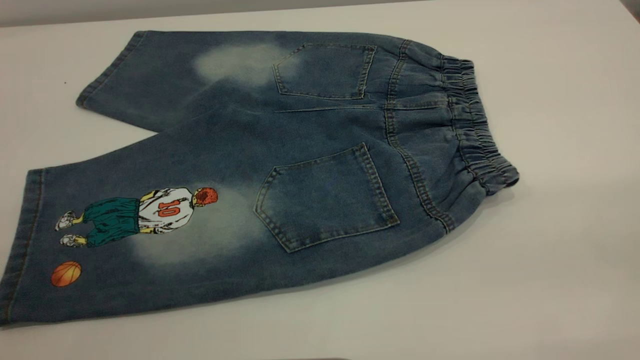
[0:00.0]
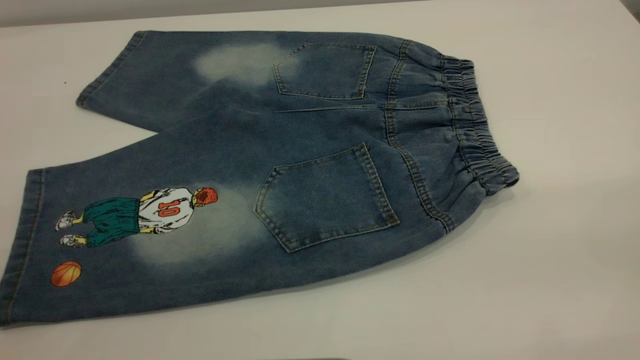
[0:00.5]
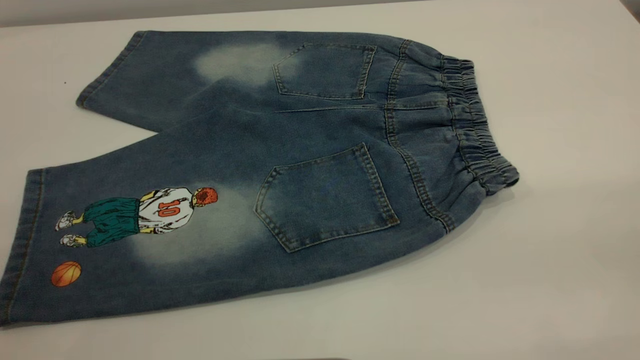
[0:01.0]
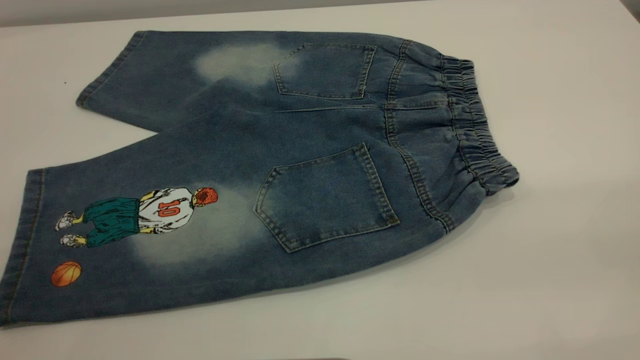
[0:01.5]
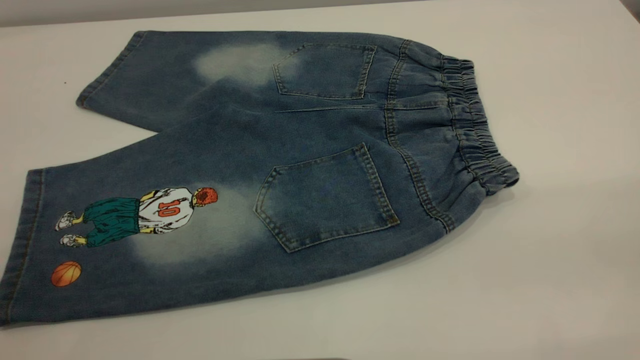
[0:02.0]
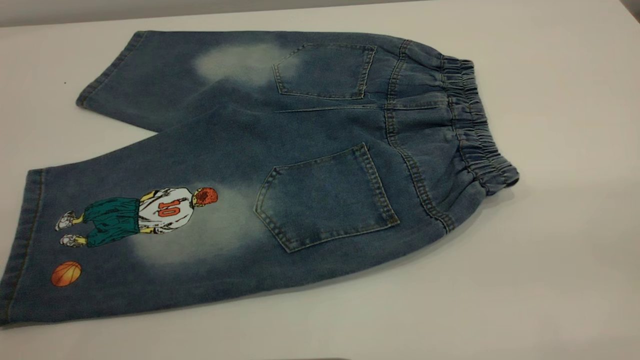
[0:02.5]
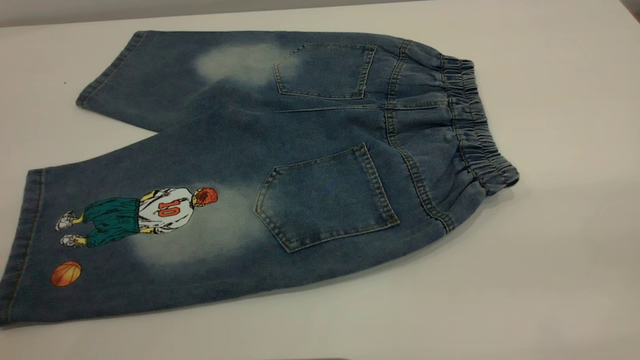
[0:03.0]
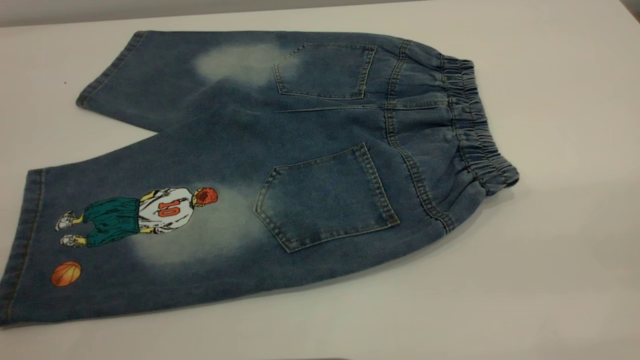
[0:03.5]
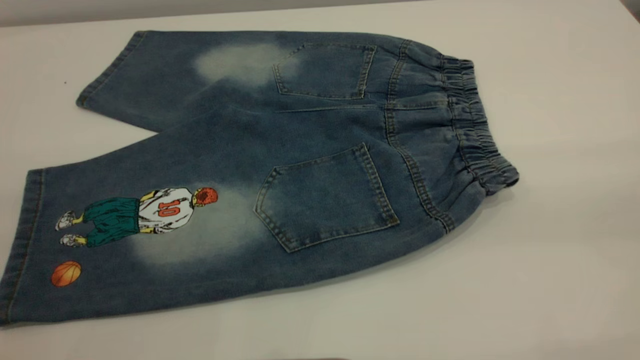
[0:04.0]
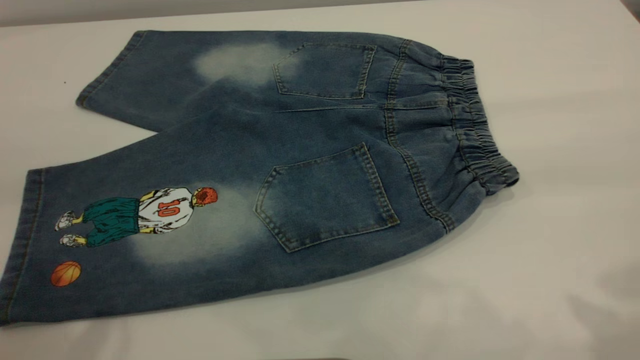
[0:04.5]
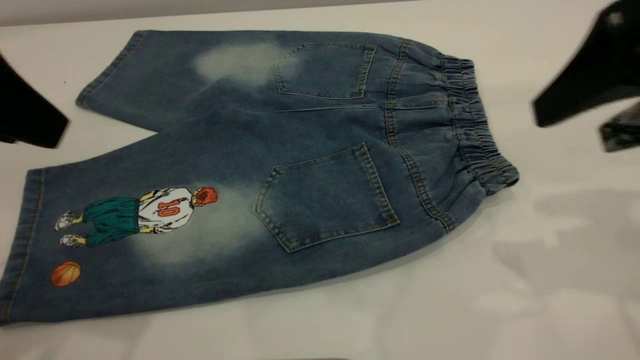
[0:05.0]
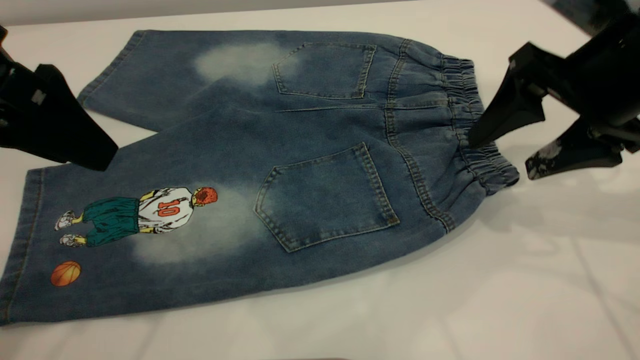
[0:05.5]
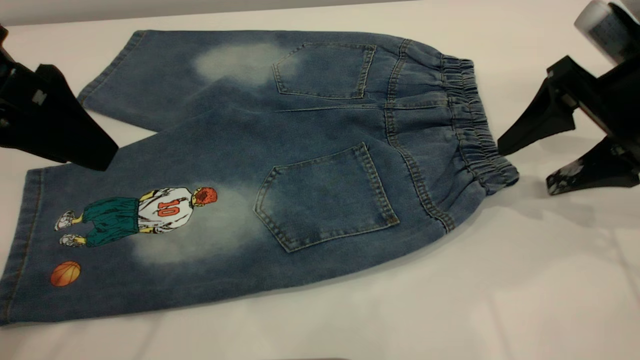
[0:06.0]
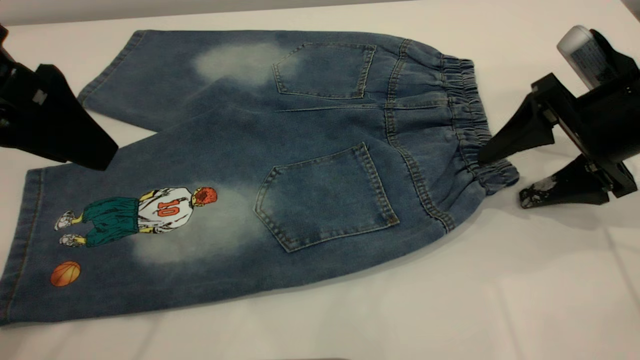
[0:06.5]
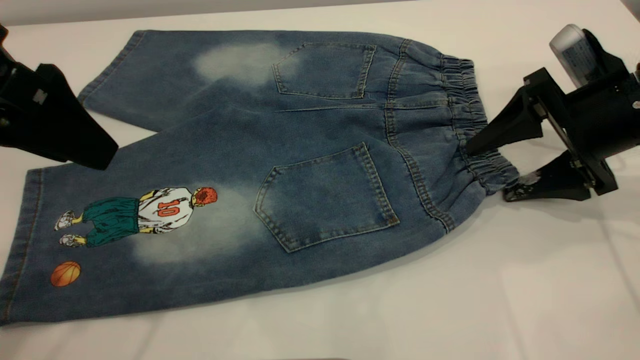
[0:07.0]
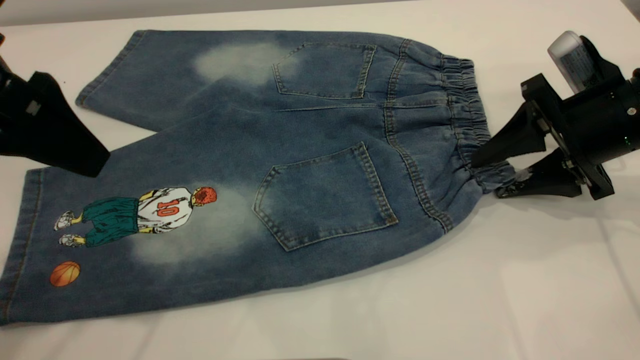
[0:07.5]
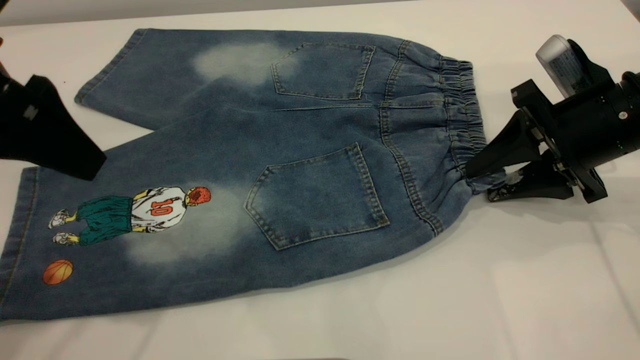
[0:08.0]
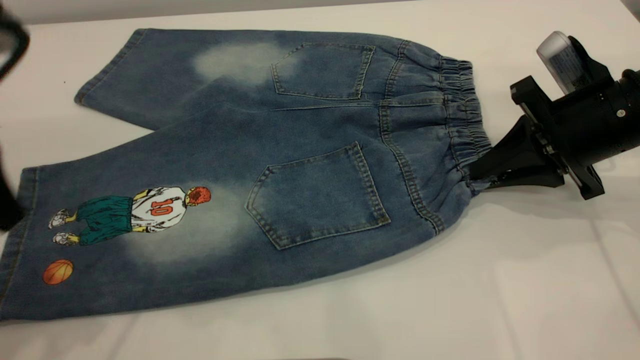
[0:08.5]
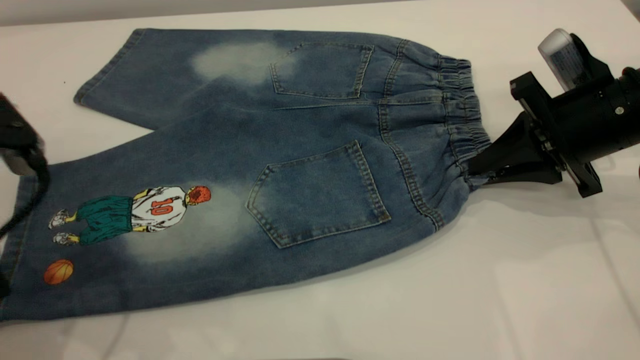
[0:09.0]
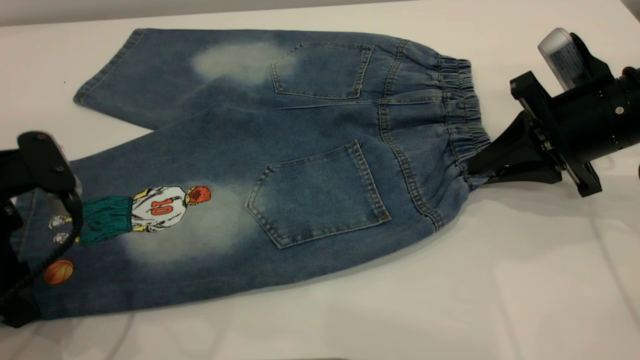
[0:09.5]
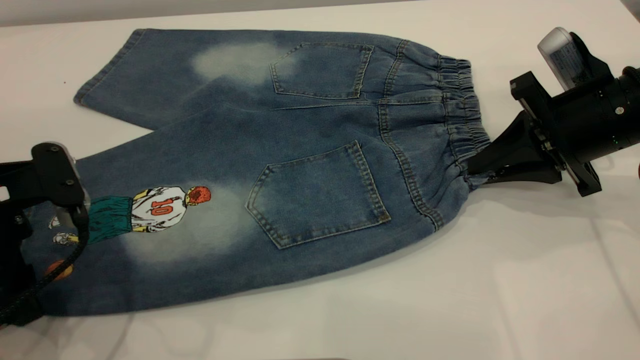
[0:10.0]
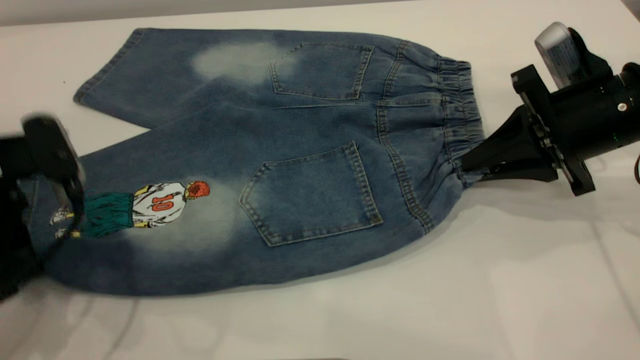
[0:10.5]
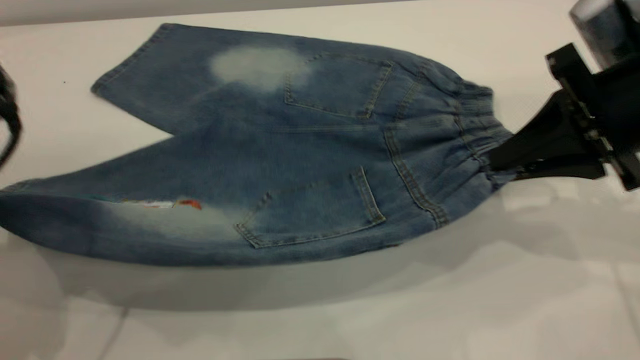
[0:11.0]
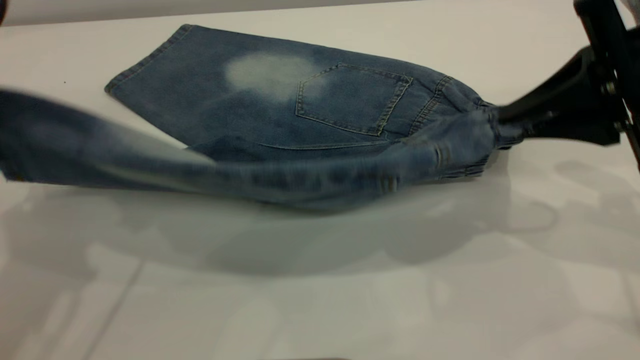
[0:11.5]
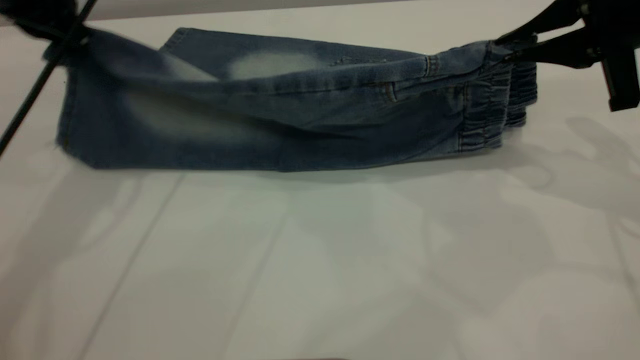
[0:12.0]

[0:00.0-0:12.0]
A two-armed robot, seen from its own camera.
0:00.0 to 0:02.0: Both grippers stay about where they are.
0:04.0 to 0:06.0: The left gripper shifts about 20 cm forward and downward, and opens its fingers. The right gripper moves forward and downward, about 35 cm.
0:06.0 to 0:08.0: The right gripper closes its fingers.
0:08.0 to 0:10.0: The right gripper closes. The left gripper is displaced downward by roughly 15 cm.
0:10.0 to 0:12.0: The left gripper goes some 20 cm forward and upward, and closes its fingers. The right gripper is displaced upward by approximately 10 cm.

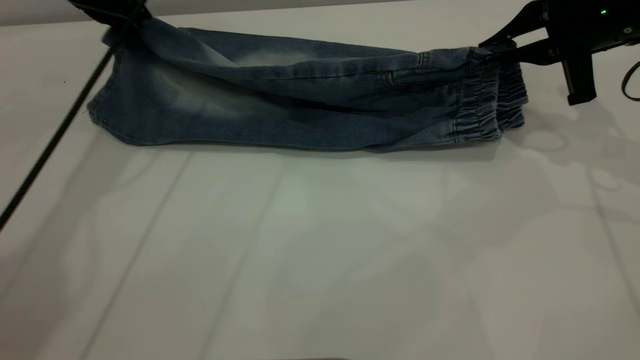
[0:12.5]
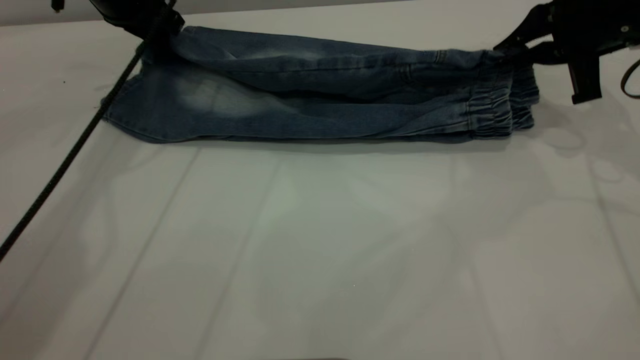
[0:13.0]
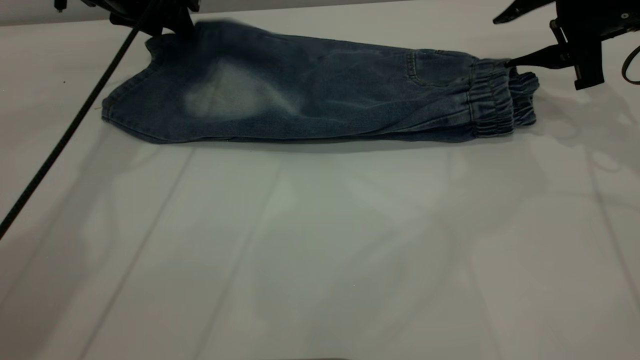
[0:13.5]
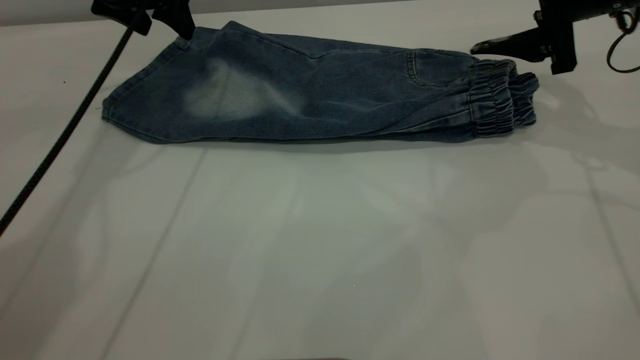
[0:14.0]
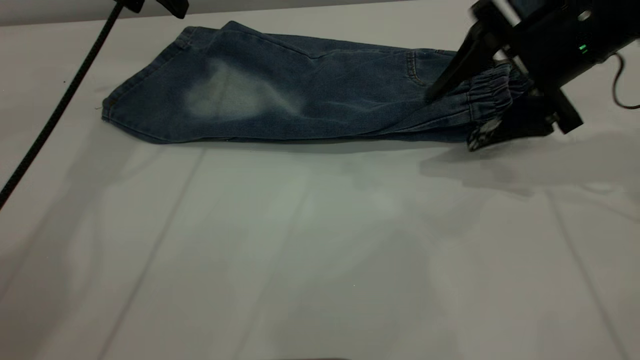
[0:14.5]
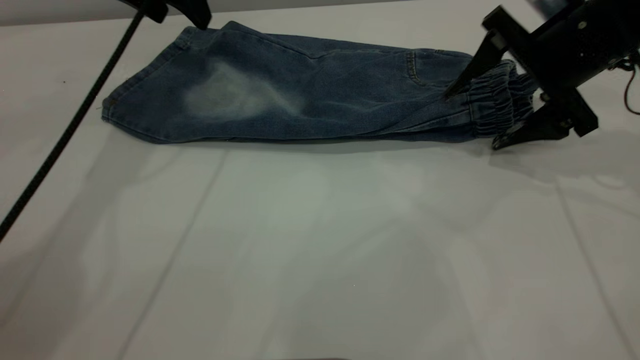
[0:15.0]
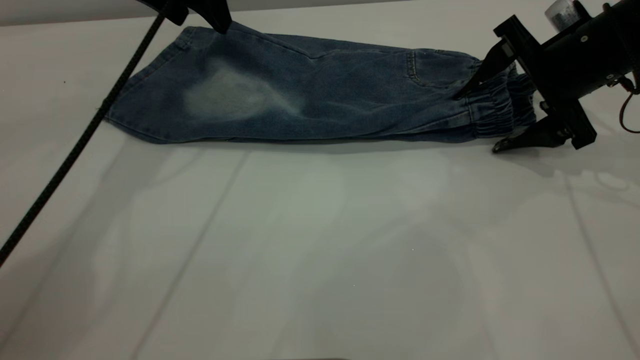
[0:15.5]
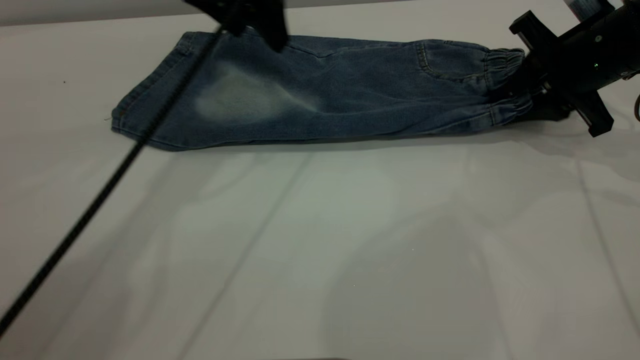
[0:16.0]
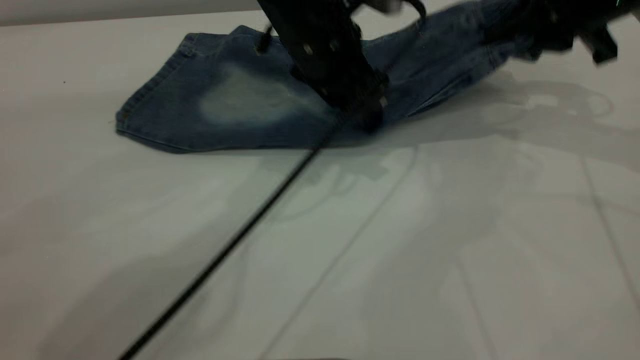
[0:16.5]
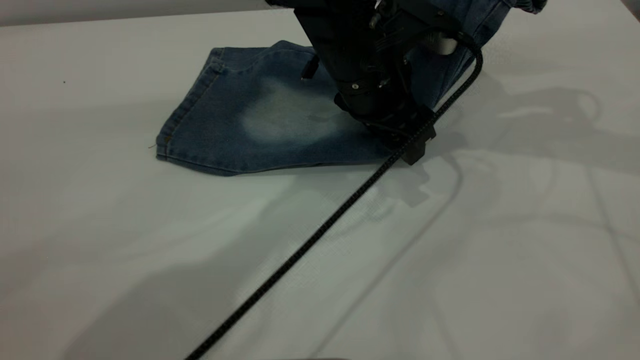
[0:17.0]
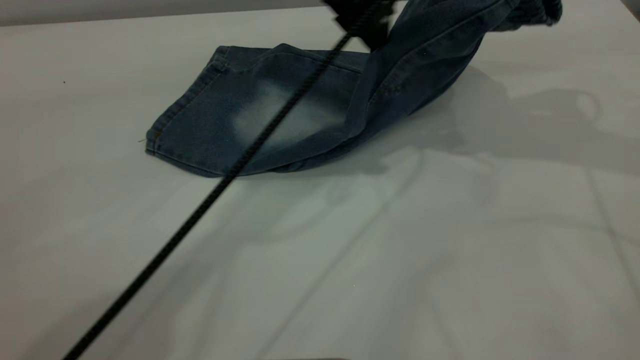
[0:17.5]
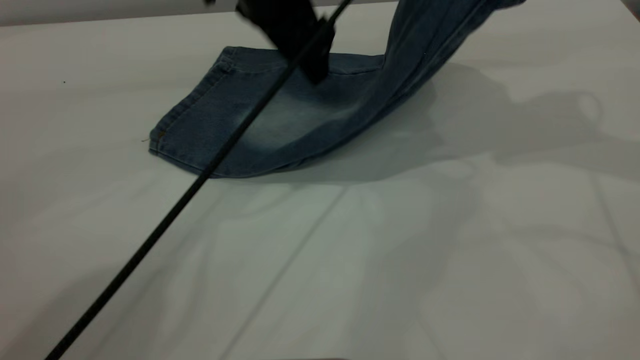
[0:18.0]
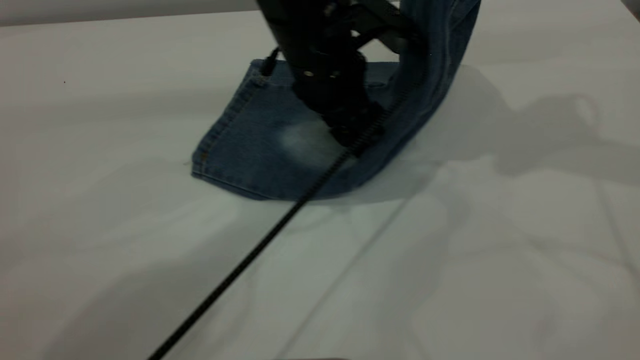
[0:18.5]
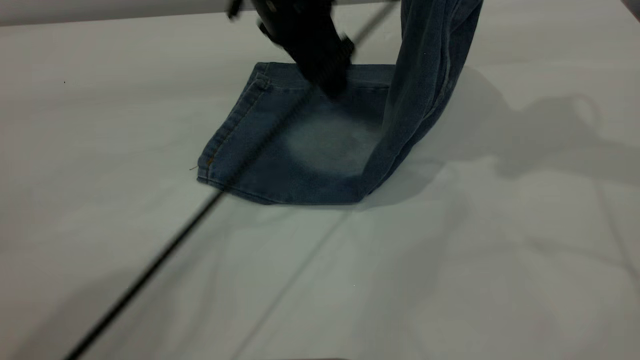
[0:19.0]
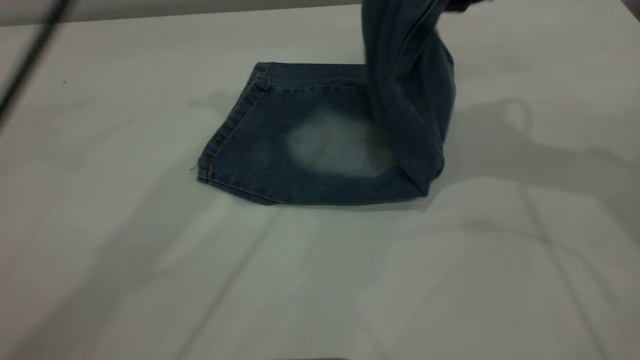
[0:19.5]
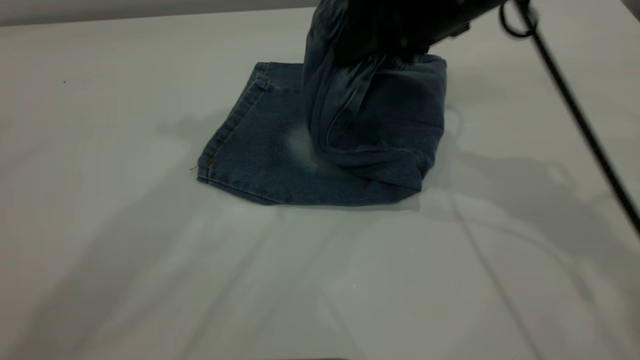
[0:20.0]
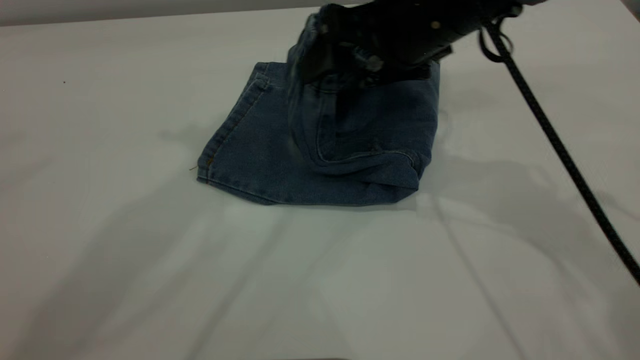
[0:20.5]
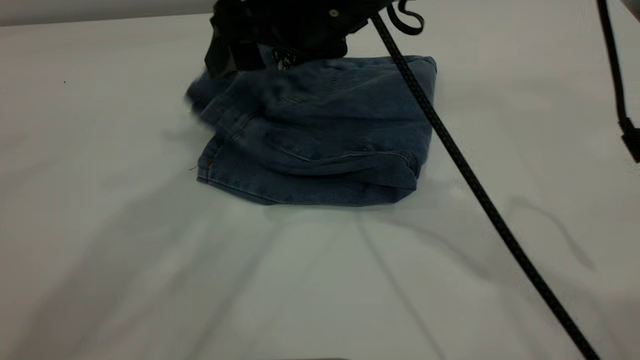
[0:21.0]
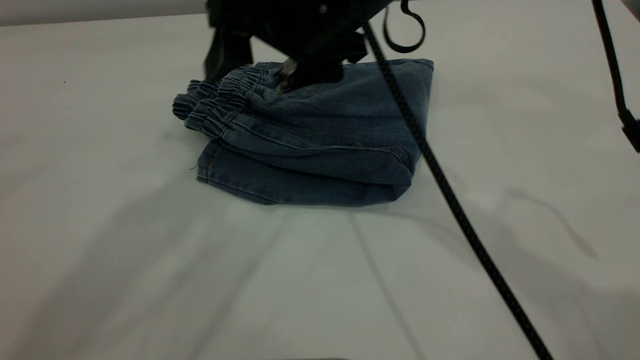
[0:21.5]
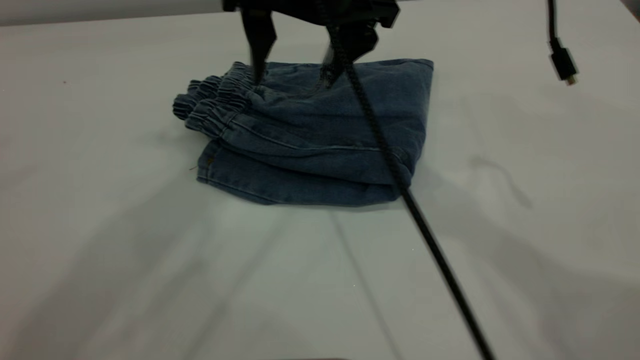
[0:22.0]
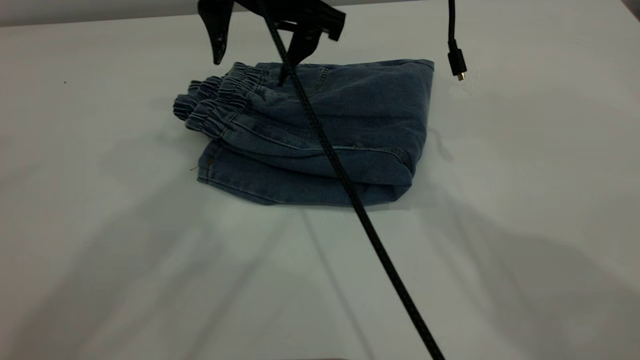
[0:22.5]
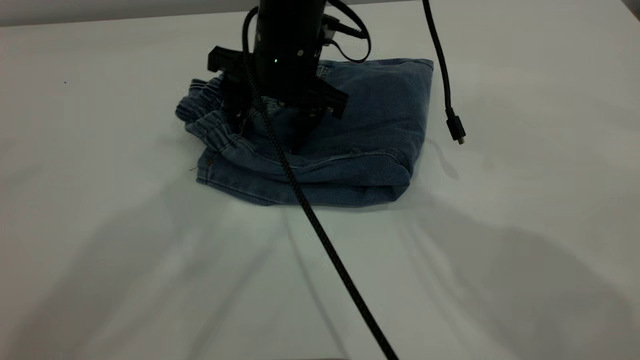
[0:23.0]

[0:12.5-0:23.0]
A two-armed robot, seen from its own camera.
Step, 0:14.0 to 0:21.0: Fold your pants from right to left.
0:12.5 to 0:14.5: The left gripper opens up. Meanwhile the right gripper travels to the left by approximately 5 cm, and opens its fingers.
0:14.5 to 0:16.5: The left gripper moves to the right and downward, some 25 cm; the right gripper ends up about 5 cm from where it was, and closes its fingers.
0:16.5 to 0:19.0: The left gripper swings up and down, some 10 cm each way, with 2 reversals; the right gripper goes about 10 cm upward.
0:19.0 to 0:21.0: The left gripper travels upward by approximately 25 cm. Meanwhile the right gripper goes about 25 cm to the left and downward, and opens up.
0:21.0 to 0:23.0: The right gripper moves downward, forward and to the left, approximately 10 cm.
